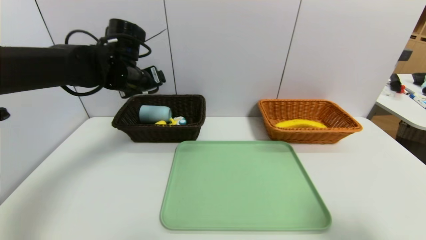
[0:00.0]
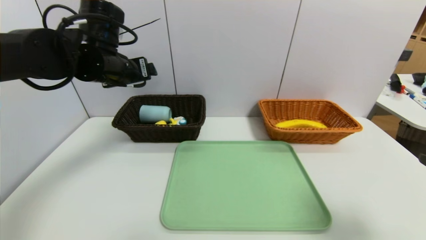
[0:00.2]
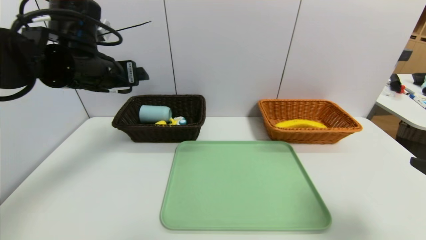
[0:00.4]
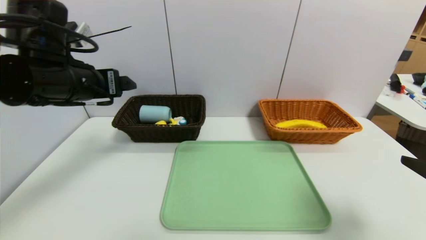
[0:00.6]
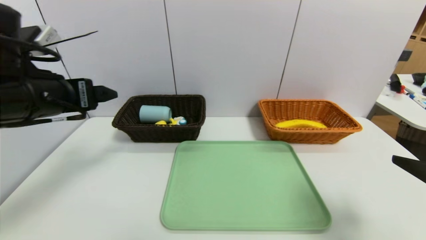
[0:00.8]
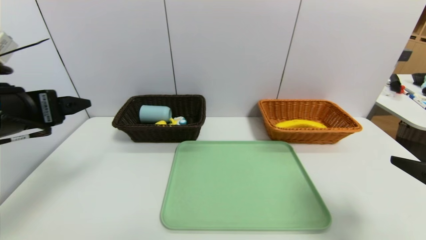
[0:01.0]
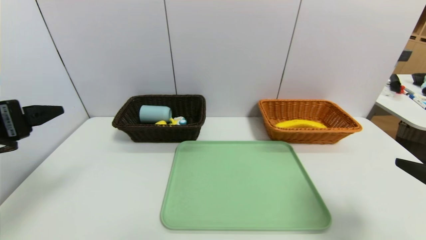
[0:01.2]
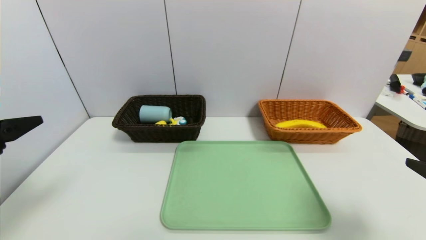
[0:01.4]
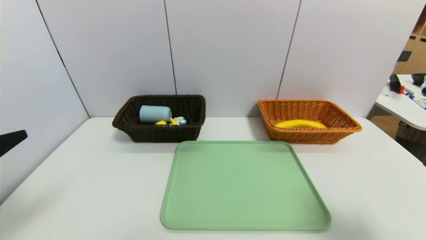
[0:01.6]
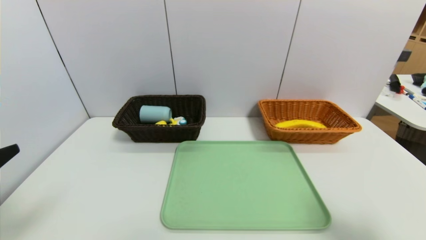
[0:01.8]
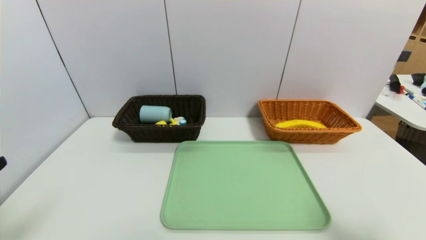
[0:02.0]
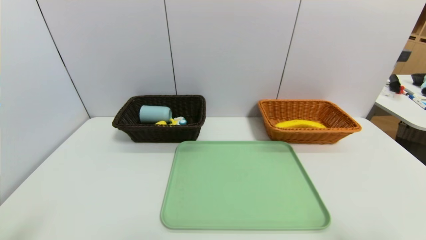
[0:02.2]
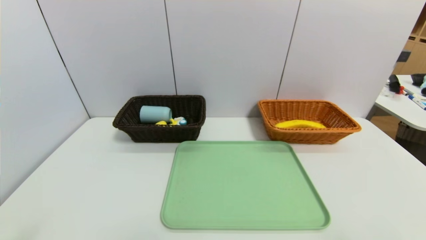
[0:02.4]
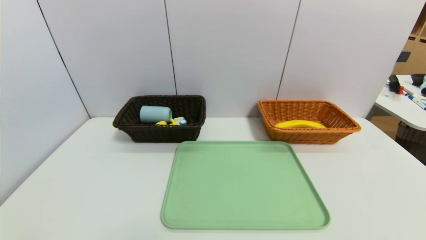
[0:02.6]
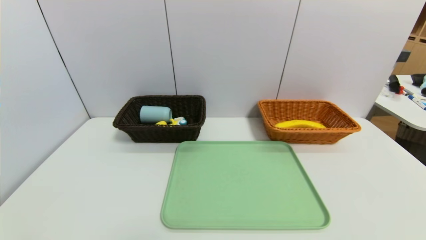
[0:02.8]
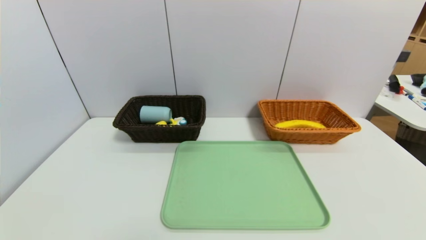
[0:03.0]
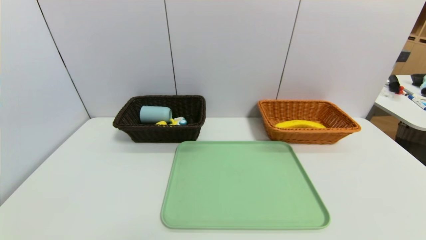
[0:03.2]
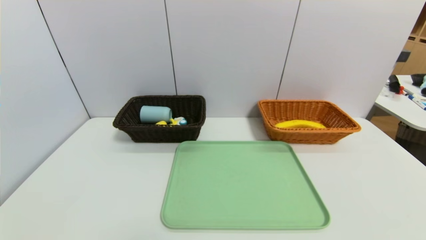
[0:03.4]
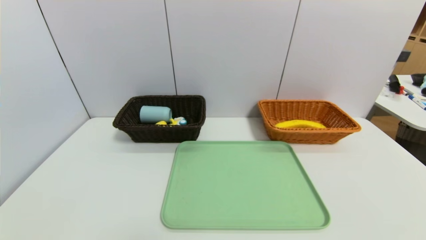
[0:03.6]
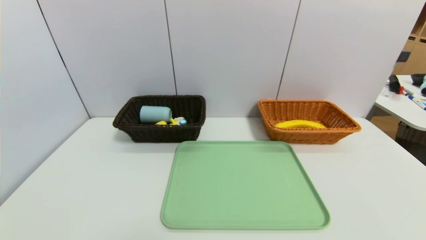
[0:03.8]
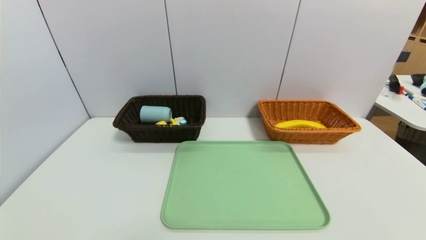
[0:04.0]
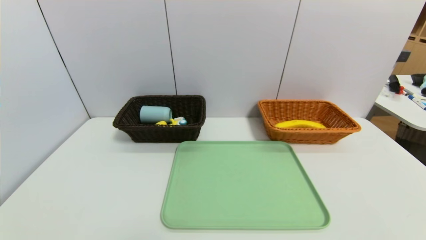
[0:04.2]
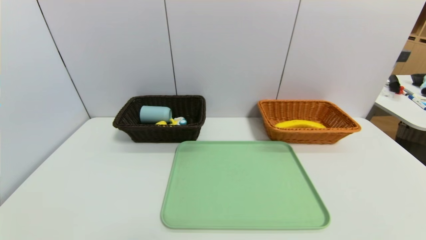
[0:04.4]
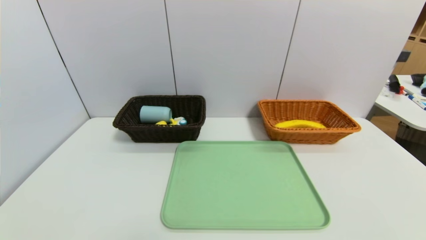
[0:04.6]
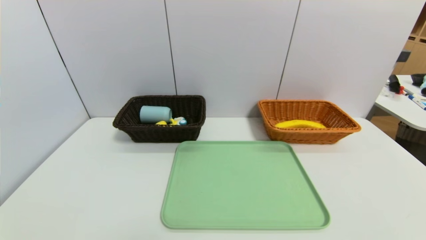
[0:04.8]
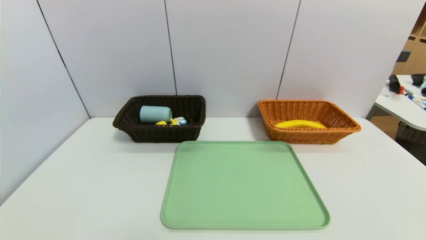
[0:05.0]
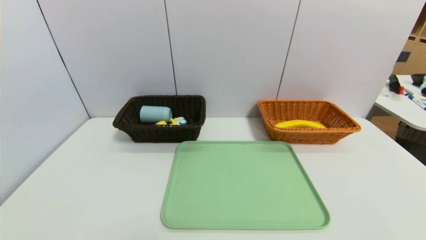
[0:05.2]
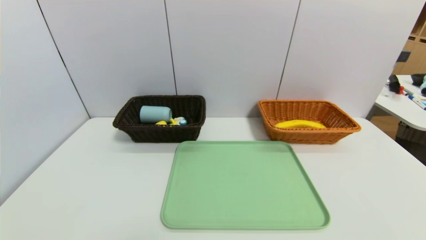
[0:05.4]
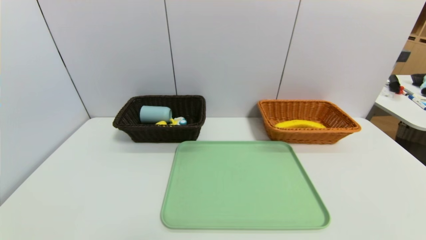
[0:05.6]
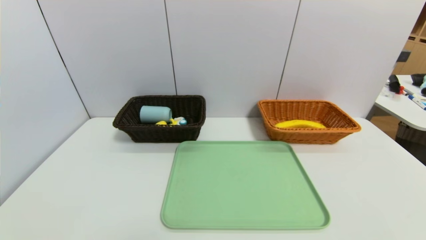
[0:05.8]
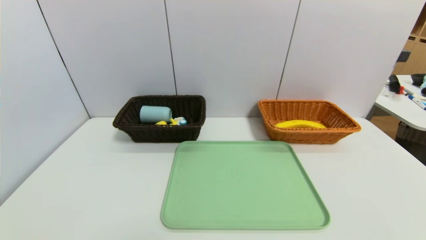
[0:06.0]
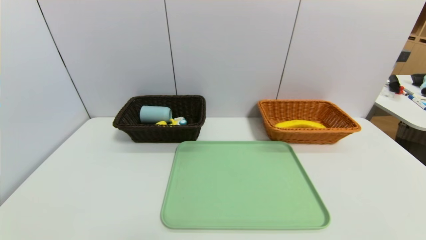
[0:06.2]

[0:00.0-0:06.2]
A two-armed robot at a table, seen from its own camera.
Task of the whole recording: place the food in the right basket with the right gripper, and place the non food items in the left basket with the left gripper.
0:00.0 to 0:01.6: The left gripper moves backward, approximately 30 cm.
0:01.6 to 0:03.2: Both grippers travel together backward and downward, some 15 cm.
0:04.6 to 0:06.2: Neither gripper changes place.

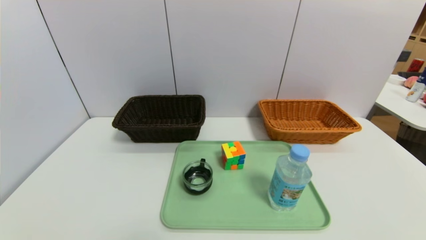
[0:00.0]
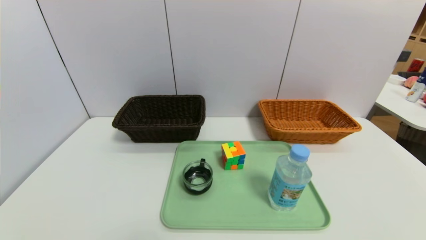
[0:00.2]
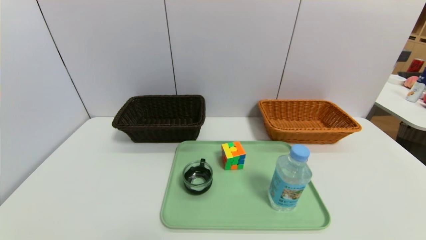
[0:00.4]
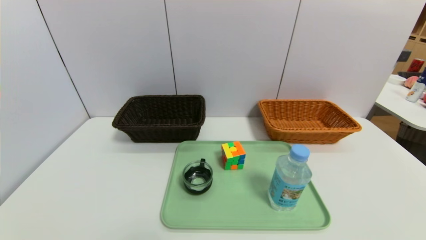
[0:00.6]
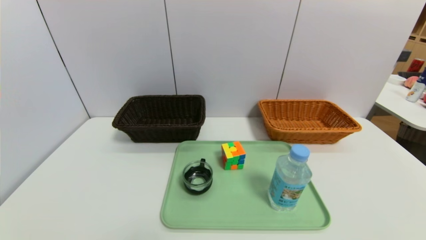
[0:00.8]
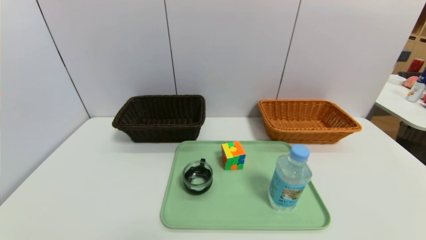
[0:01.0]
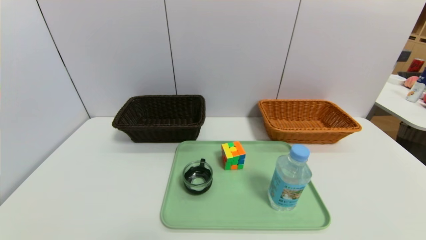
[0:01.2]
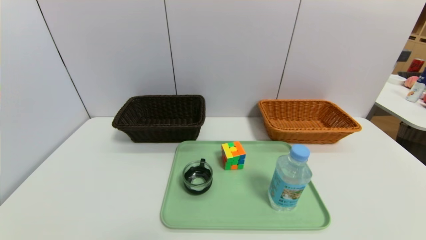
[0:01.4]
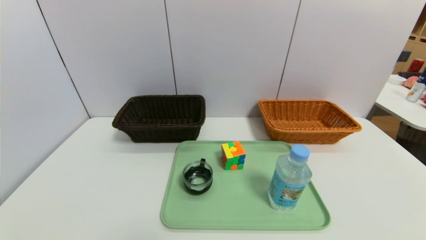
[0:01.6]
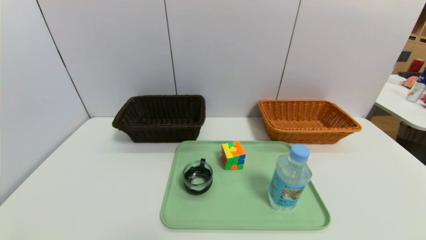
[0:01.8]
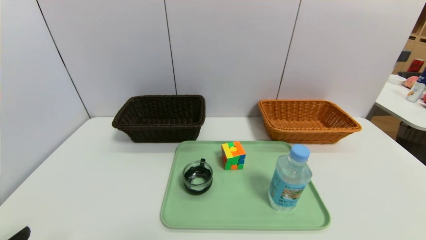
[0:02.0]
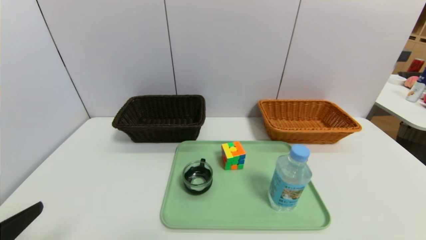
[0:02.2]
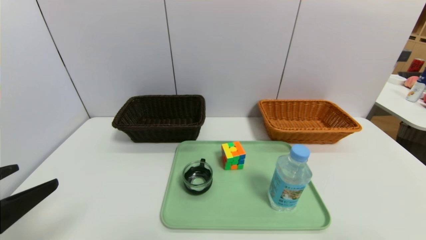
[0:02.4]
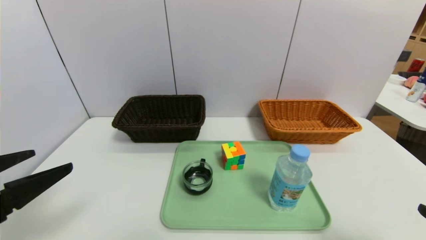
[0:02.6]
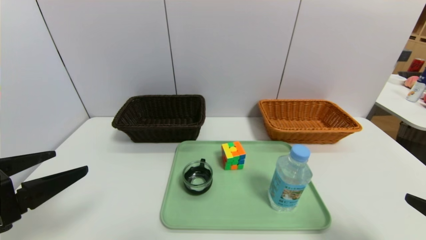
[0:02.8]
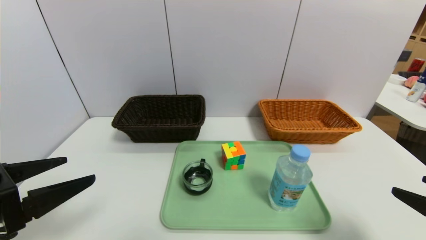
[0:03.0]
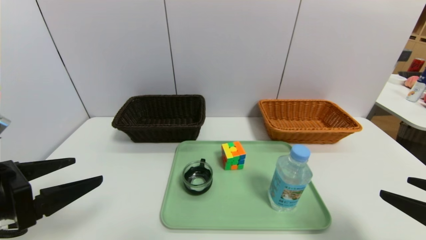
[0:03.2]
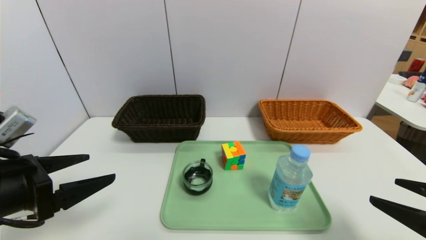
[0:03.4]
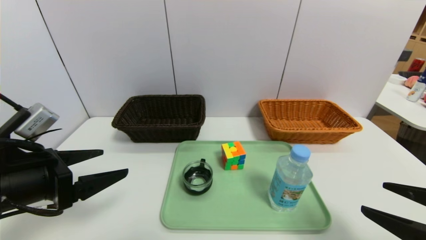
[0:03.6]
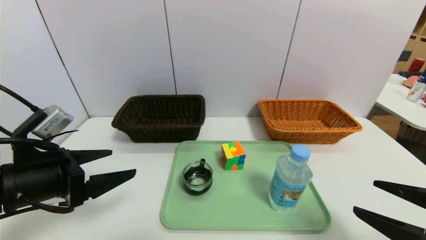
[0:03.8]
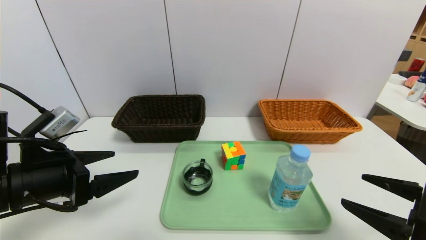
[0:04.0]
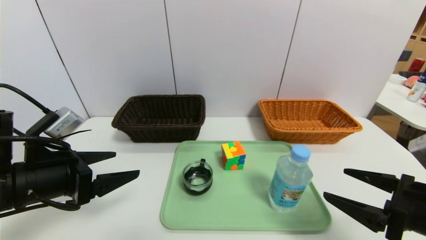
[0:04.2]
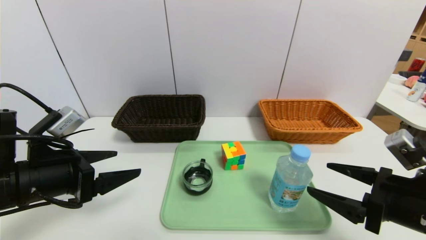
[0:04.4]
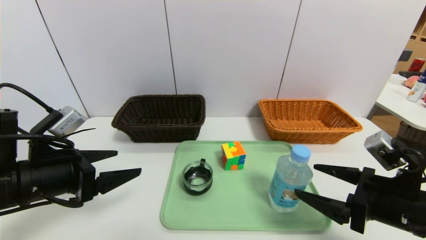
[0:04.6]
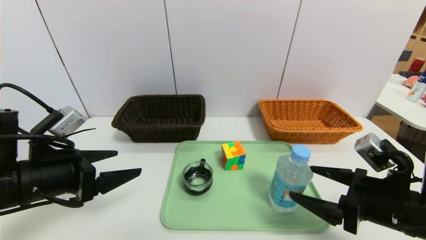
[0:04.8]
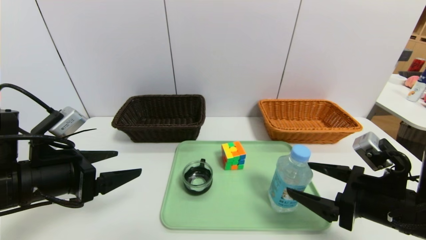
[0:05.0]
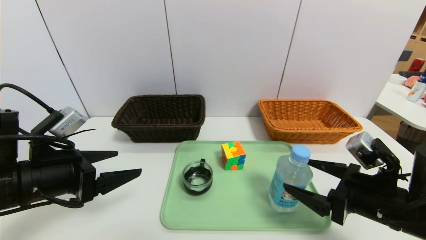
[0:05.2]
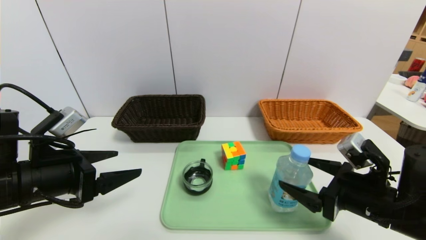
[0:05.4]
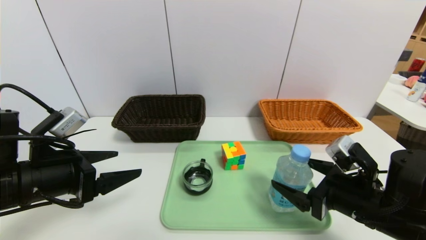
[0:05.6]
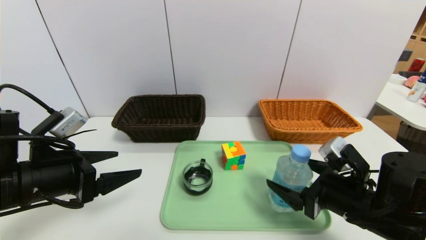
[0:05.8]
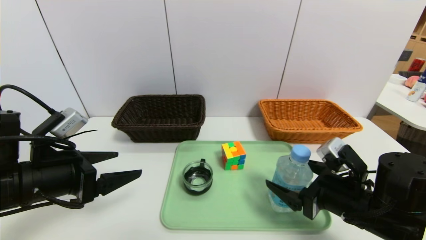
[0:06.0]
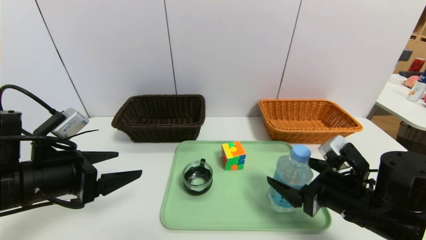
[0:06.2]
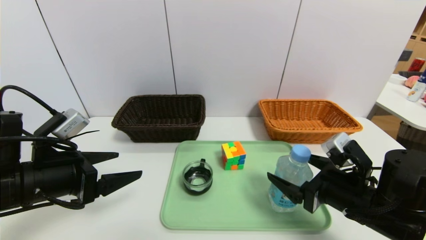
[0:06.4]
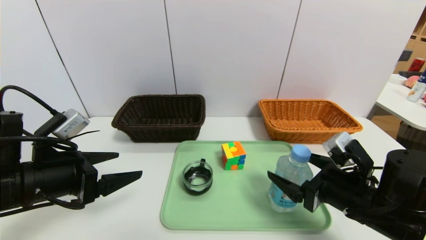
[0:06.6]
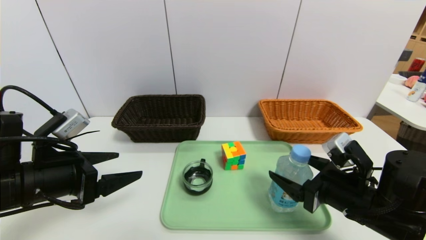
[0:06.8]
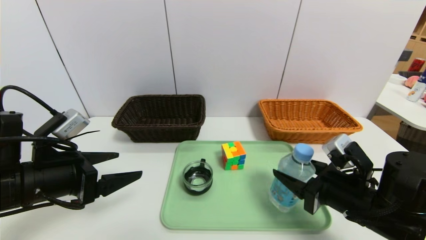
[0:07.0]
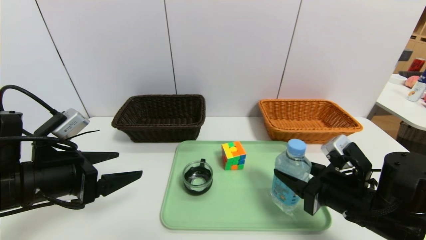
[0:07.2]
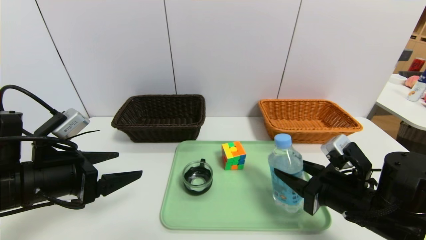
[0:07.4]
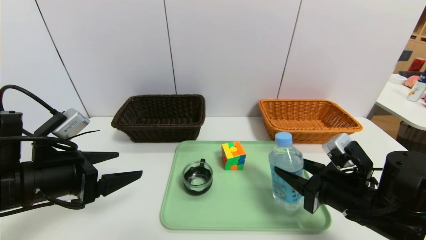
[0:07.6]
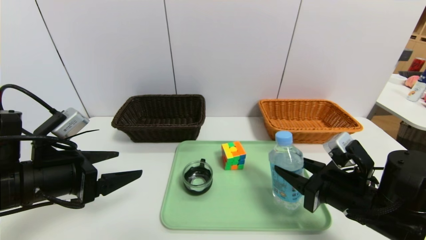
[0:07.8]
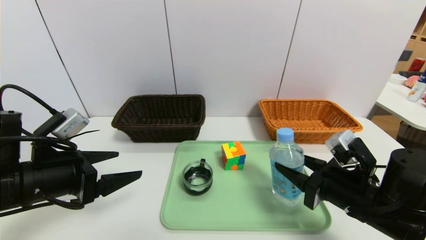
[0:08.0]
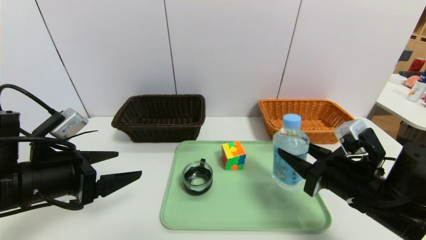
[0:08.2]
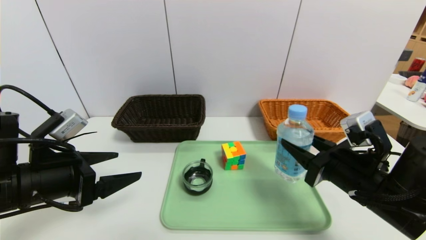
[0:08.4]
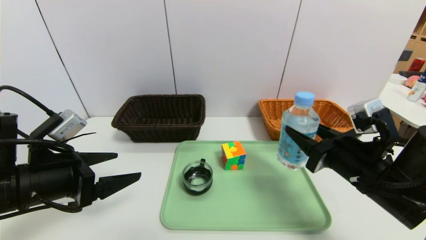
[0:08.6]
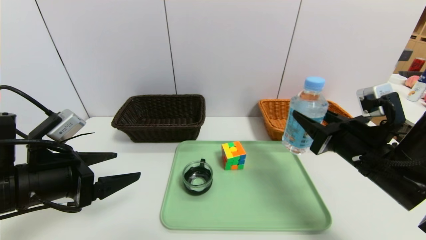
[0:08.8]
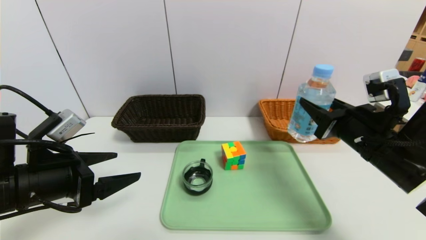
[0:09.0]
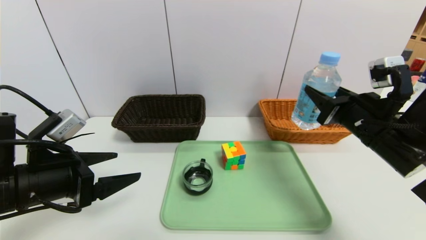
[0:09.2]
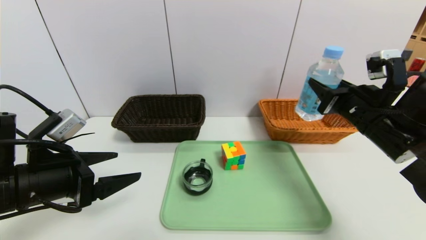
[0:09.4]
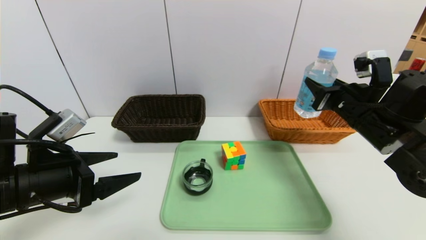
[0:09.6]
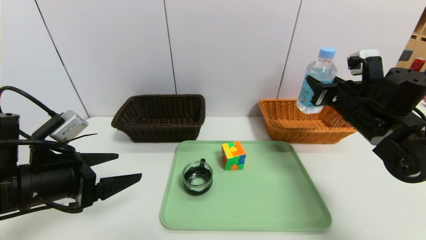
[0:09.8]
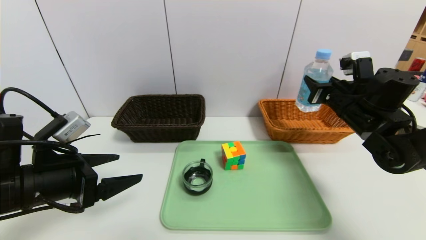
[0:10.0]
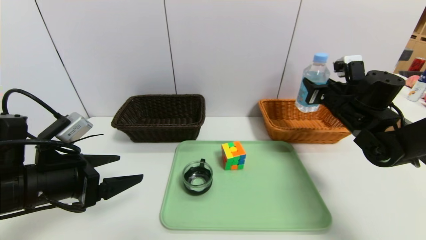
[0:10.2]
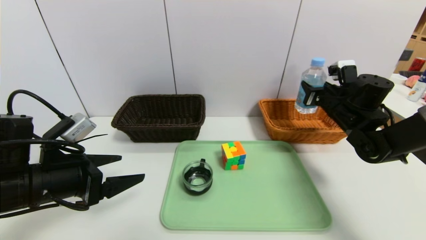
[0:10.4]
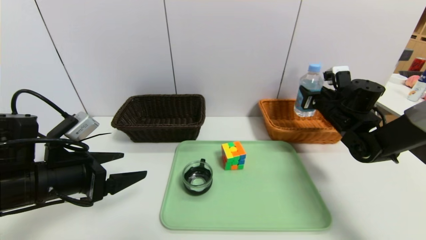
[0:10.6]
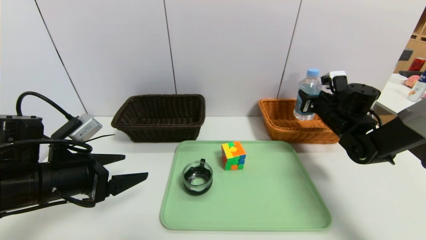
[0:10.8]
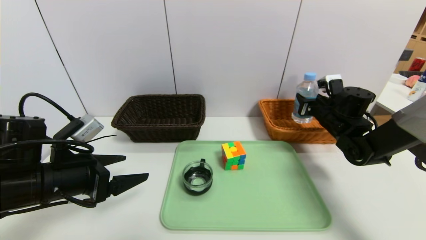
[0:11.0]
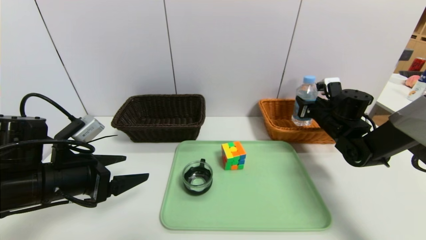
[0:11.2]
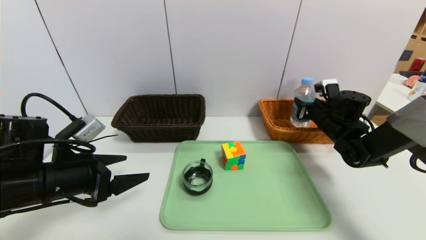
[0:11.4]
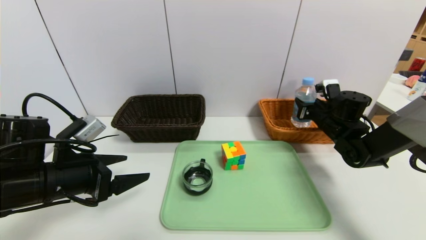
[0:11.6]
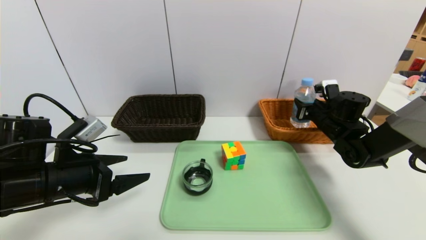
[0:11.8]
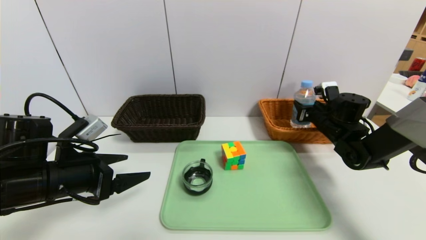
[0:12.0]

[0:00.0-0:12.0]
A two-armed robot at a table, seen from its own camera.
Task of the whole recording: place the food in the right basket with the right gripper, and place the non food items in the left basket with the left gripper.
0:01.6 to 0:03.0: Both grippers move forward and upward, approximately 15 cm.
0:03.0 to 0:04.4: The right gripper travels forward and to the left by about 10 cm; the left gripper is displaced forward by approximately 5 cm.
0:04.4 to 0:06.0: The right gripper heads to the left, covering about 5 cm.
0:06.0 to 0:07.6: The right gripper closes up.
0:07.6 to 0:09.0: The right gripper heads upward, covering about 5 cm.
0:09.0 to 0:10.4: The right gripper goes about 15 cm forward.
0:10.4 to 0:12.0: The right gripper travels downward by some 5 cm.
